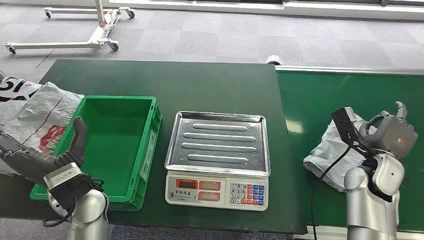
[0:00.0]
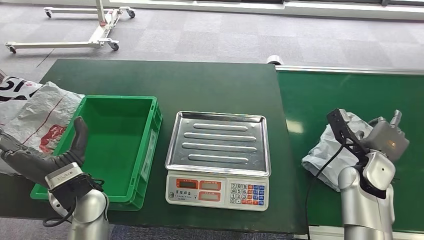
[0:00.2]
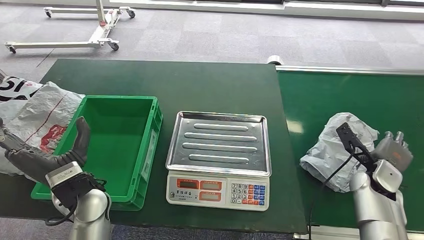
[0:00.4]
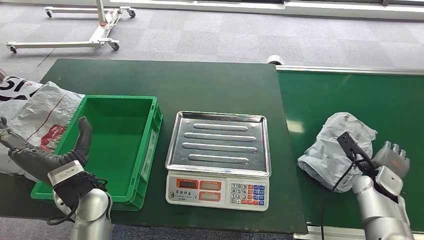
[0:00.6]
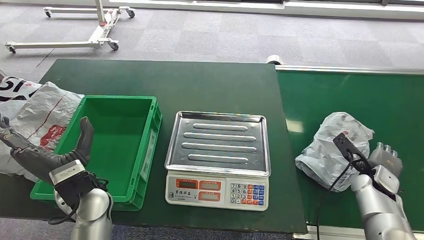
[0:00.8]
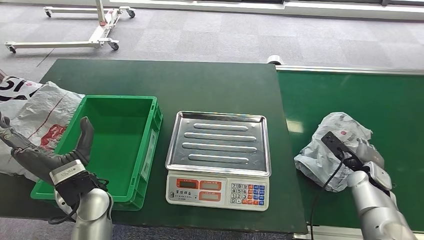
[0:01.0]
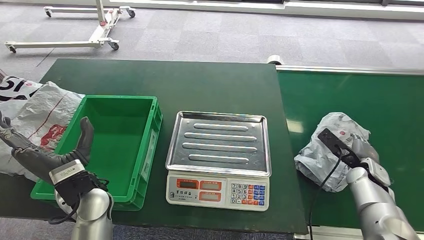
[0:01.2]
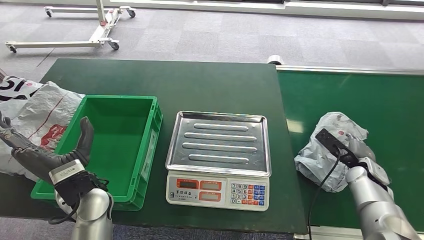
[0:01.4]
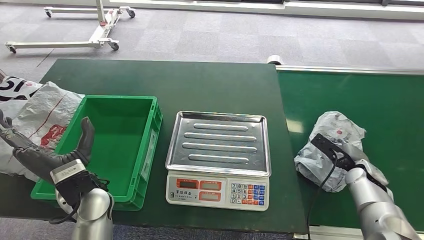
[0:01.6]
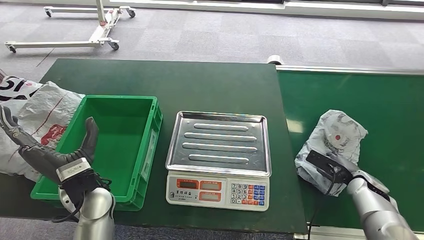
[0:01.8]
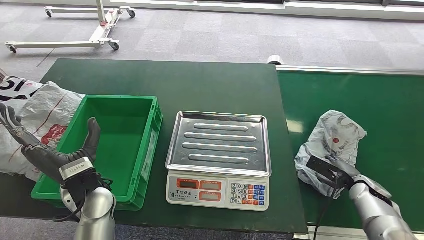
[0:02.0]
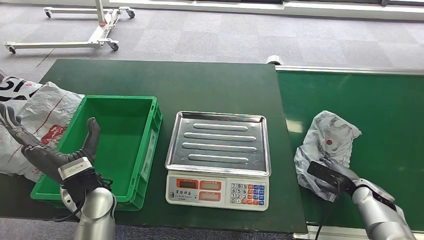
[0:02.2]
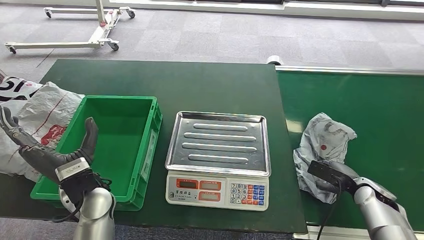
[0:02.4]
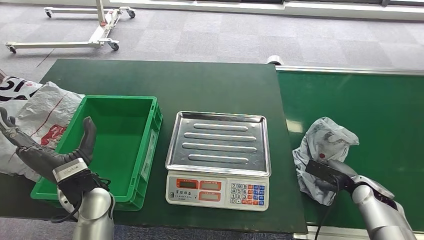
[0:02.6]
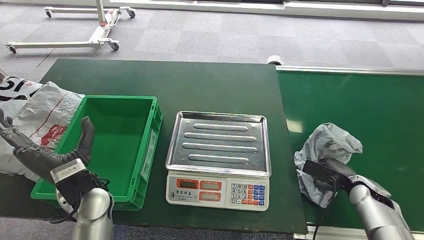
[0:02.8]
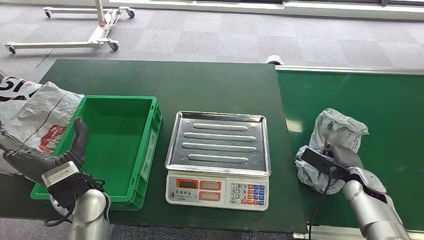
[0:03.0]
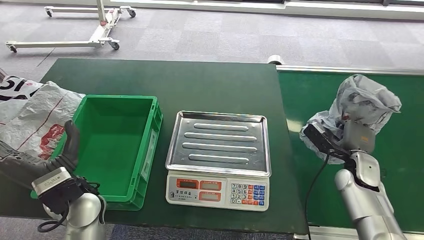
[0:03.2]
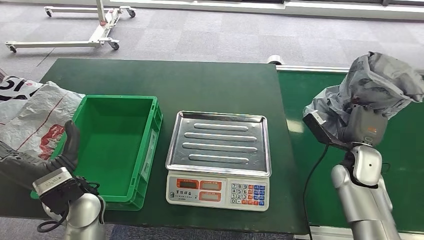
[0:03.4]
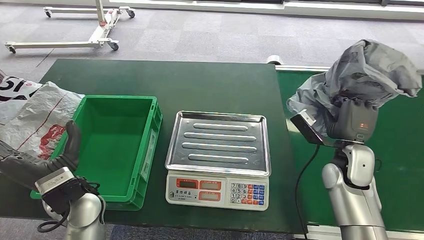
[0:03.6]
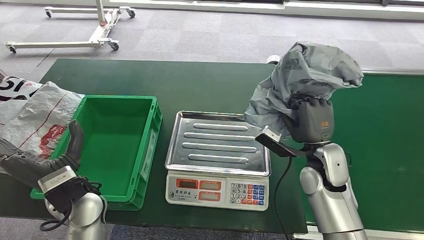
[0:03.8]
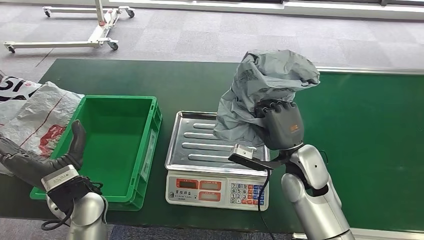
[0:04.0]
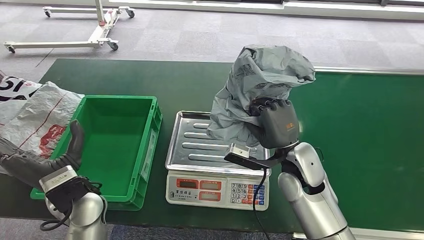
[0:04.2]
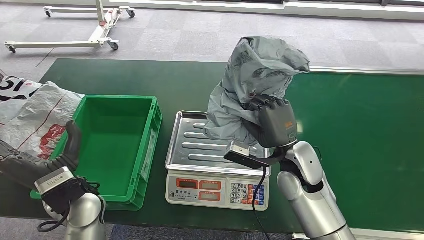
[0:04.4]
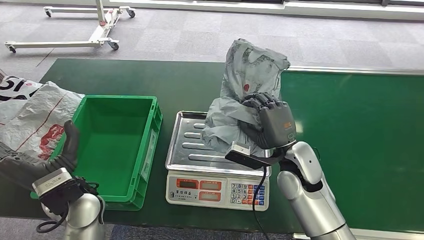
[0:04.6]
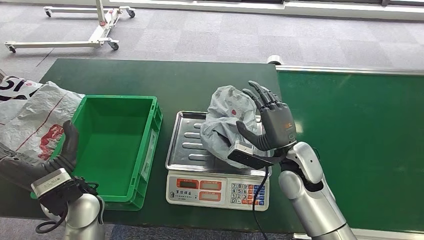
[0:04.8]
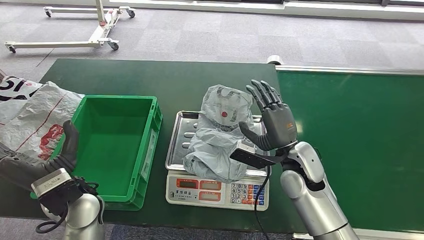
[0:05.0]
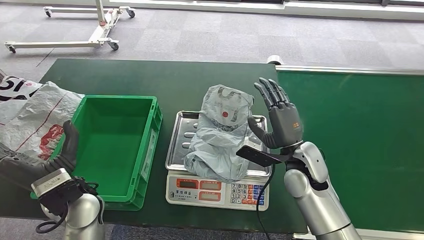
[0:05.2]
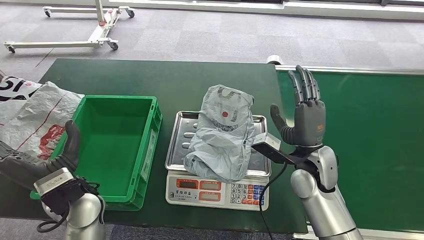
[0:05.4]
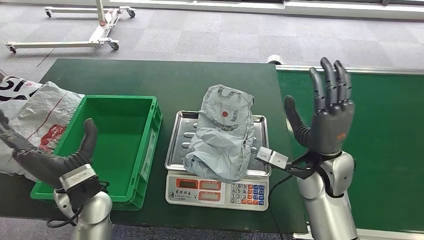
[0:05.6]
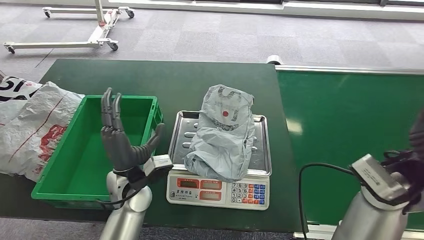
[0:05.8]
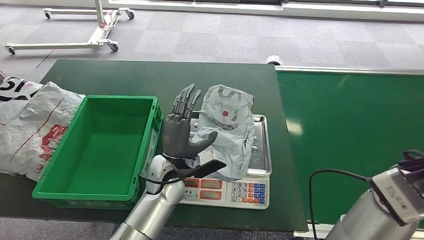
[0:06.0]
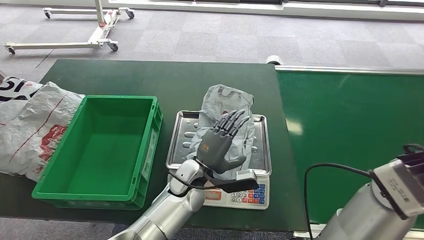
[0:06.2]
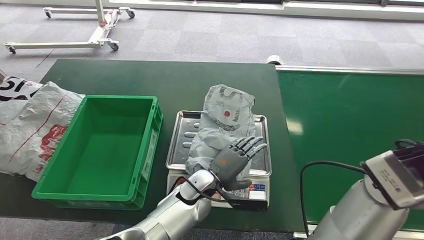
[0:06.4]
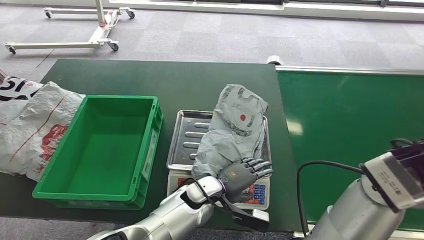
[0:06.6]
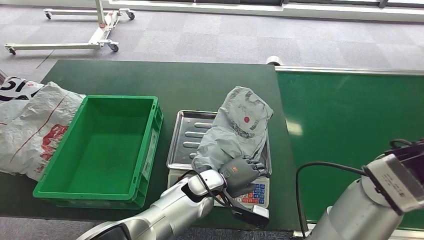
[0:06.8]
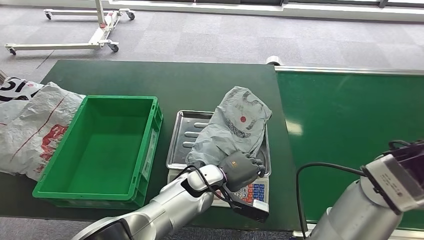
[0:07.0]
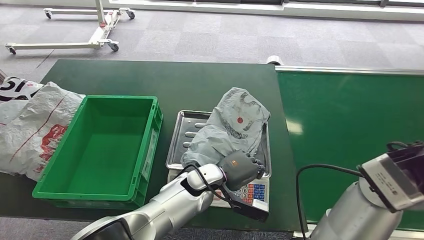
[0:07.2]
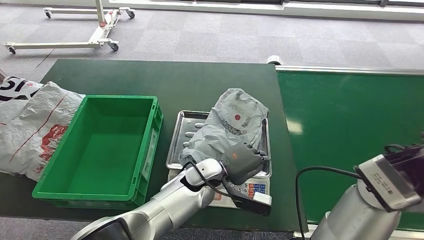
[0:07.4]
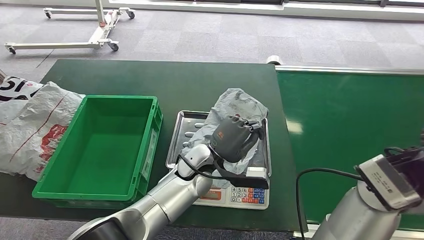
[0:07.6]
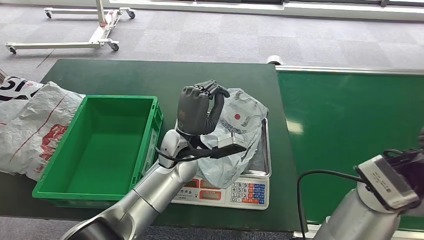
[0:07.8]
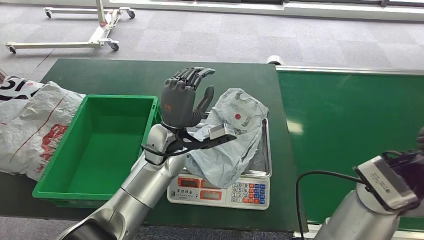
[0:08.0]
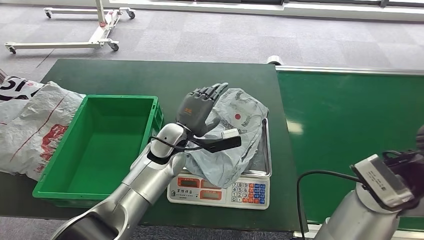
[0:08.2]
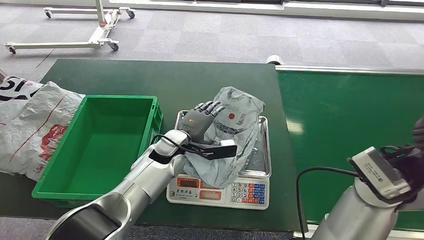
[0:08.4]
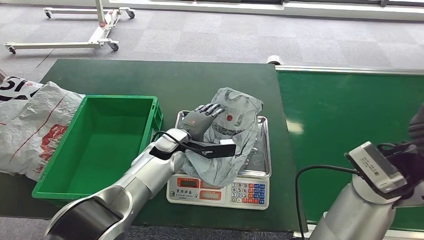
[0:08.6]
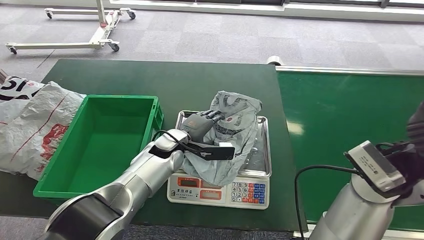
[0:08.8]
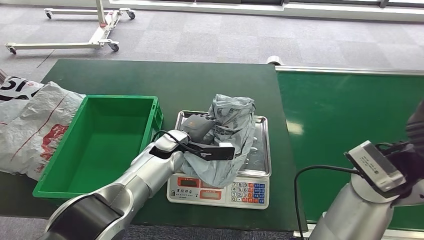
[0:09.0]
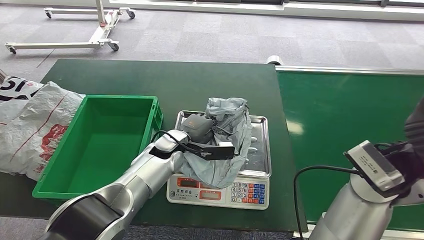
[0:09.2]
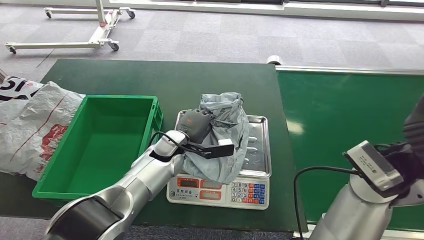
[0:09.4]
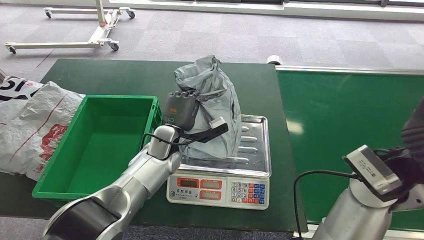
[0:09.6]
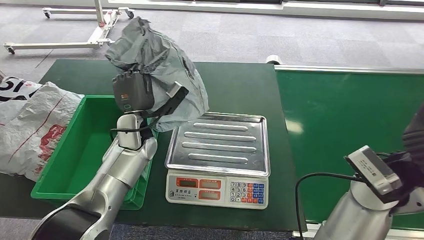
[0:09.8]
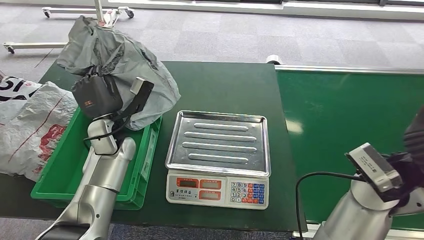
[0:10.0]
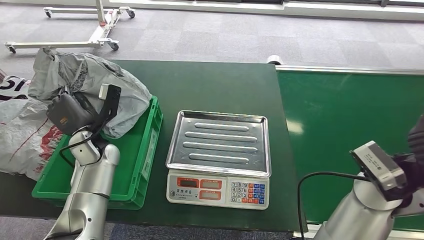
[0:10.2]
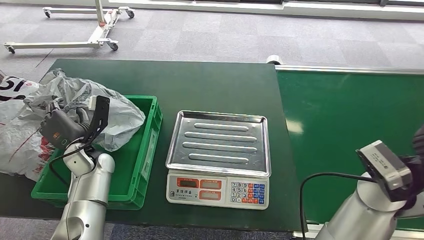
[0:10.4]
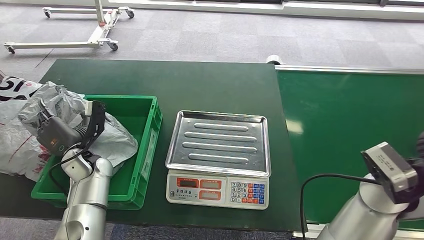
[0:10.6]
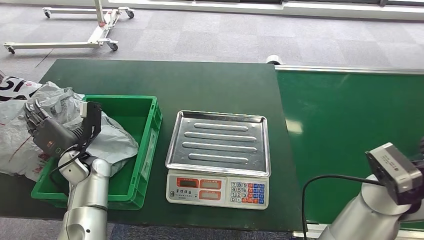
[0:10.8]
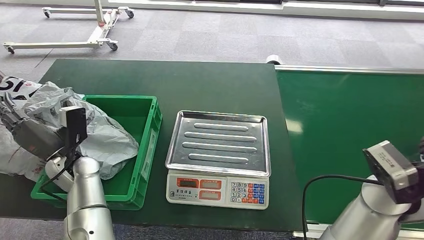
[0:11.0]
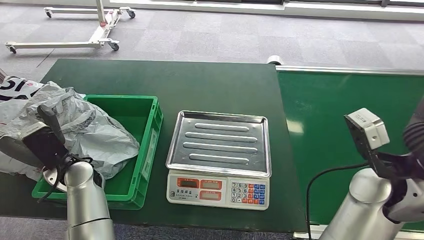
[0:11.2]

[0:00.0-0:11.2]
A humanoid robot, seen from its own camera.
Step, 0:00.0 to 0:03.2: Pick up the package from the conveyor belt.
Step, 0:03.4 to 0:04.8: Place the package onto the inbound machine.
Step, 0:05.0 to 0:09.6: Pick up the package from the inbound machine.
Step, 0:10.0 to 0:11.2: Place the package into the parcel locker.
0:01.6 to 0:03.2: The right hand shifts by roughly 5 cm.
0:03.2 to 0:04.8: The right hand travels to the left by roughly 20 cm.
0:08.0 to 0:09.6: The left hand goes about 5 cm downward.
